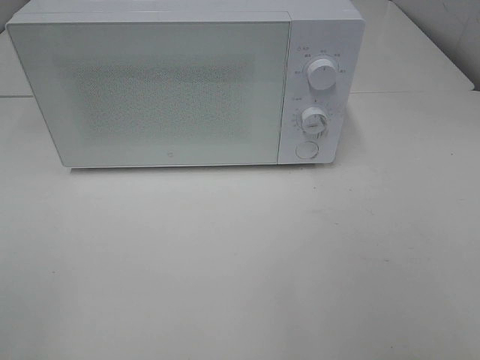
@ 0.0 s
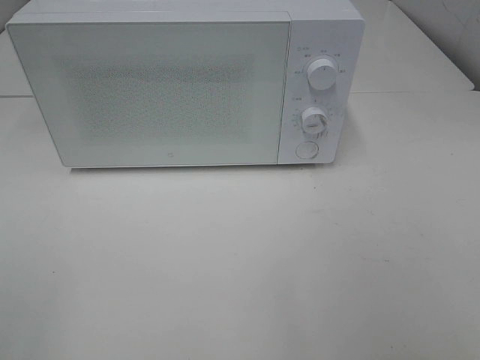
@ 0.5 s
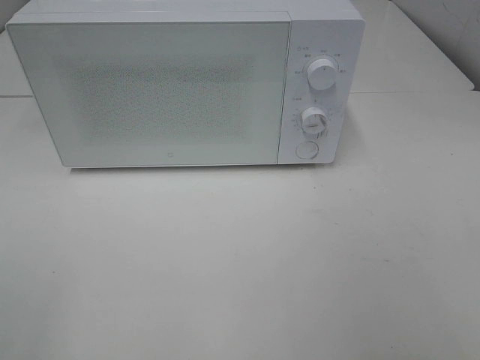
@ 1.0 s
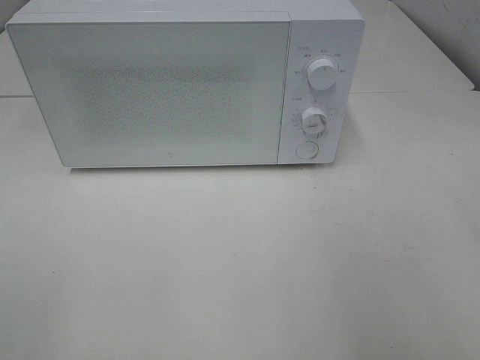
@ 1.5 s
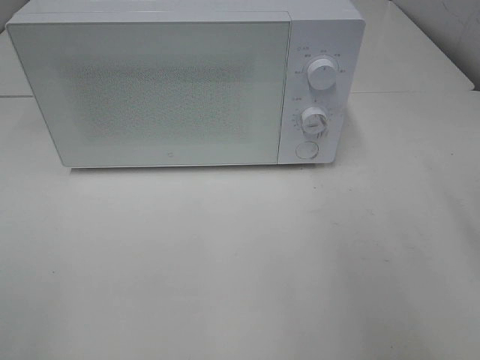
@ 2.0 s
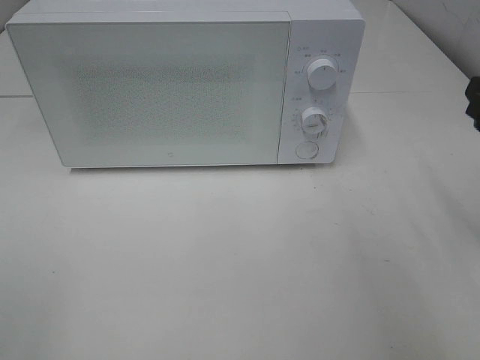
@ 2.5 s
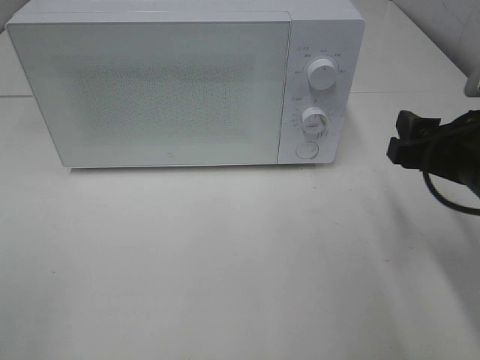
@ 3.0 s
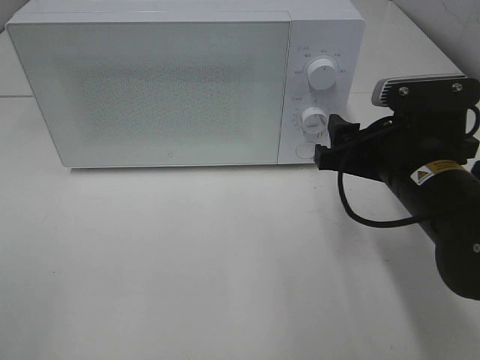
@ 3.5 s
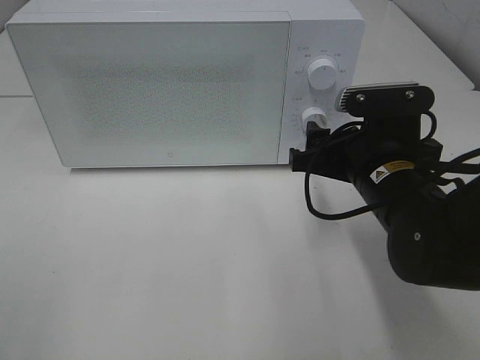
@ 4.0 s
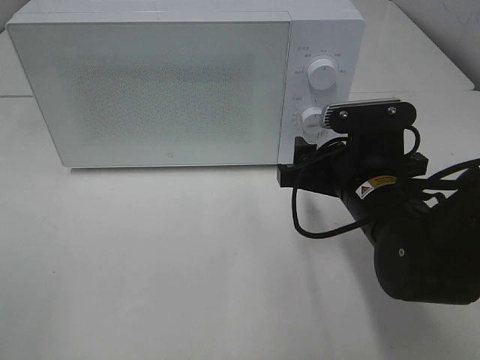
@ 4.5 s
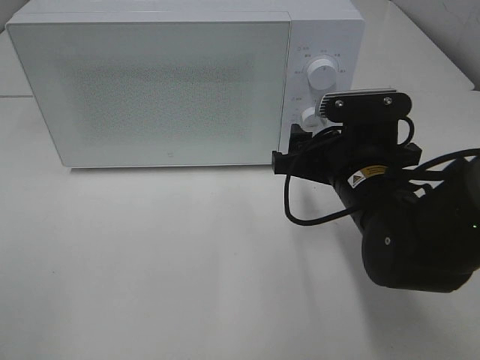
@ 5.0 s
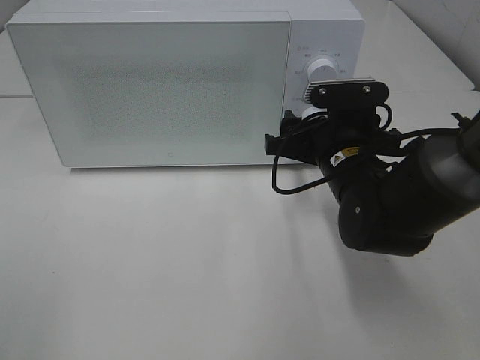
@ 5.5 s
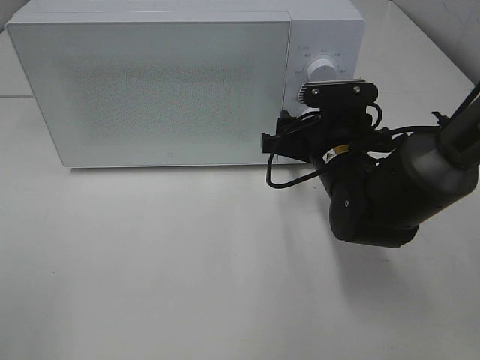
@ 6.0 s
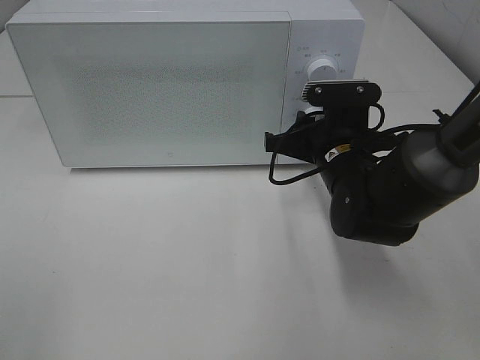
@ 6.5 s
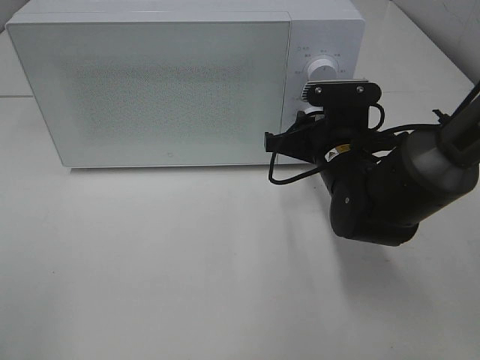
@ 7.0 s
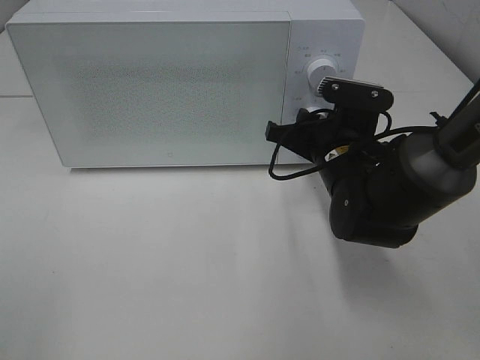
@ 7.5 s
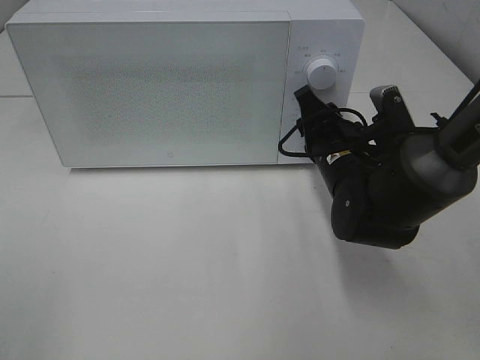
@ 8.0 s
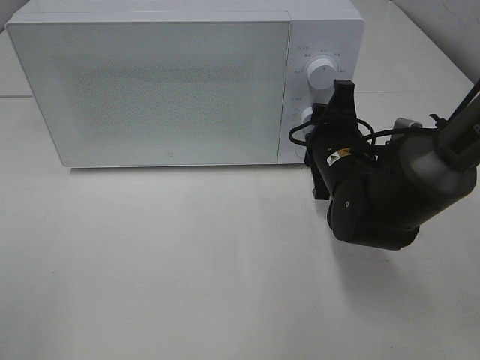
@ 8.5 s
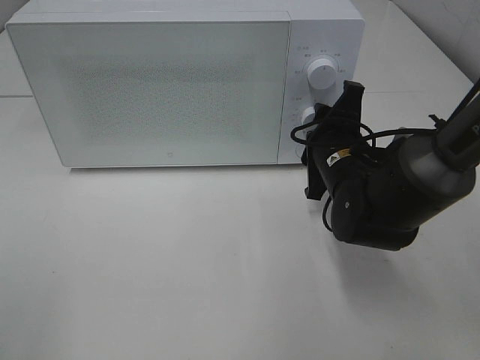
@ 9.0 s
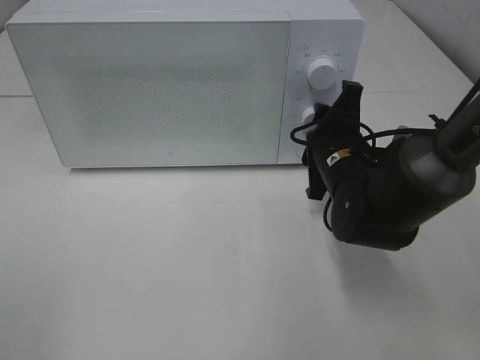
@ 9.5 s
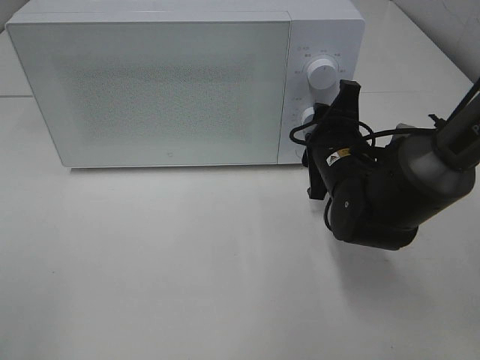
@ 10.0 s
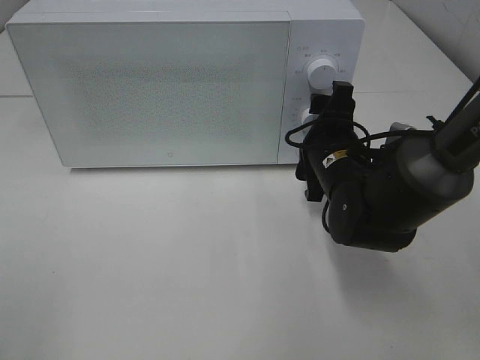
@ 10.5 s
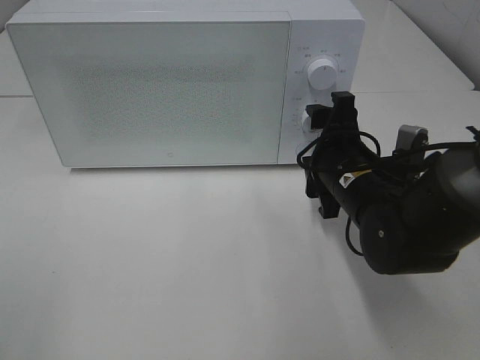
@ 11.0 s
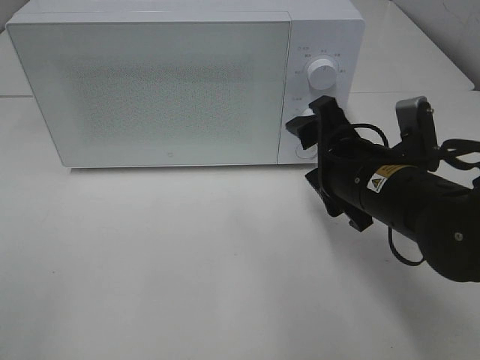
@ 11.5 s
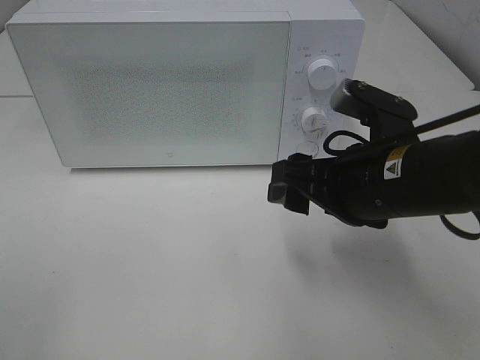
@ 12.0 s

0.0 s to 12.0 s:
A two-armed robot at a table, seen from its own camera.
Task of the whole recording: Heat Sandwich.
Step, 0.0 to 11.0 s: Right hand: twist timer button.
2.0 to 4.0 s: The right gripper heads to the left, downward and forward, covering some 20 cm.
4.0 to 6.0 s: The right gripper is displaced forward by some 5 cm.
6.0 to 8.0 s: The right gripper closes up.
10.0 to 12.0 s: The right gripper travels backward and upward by approximately 10 cm.

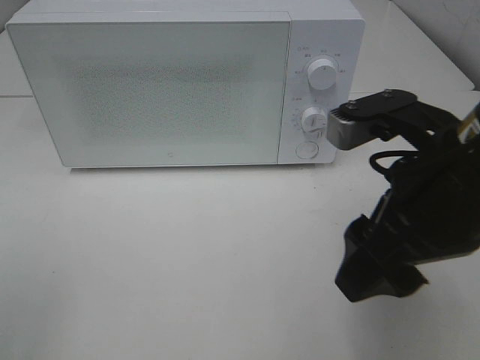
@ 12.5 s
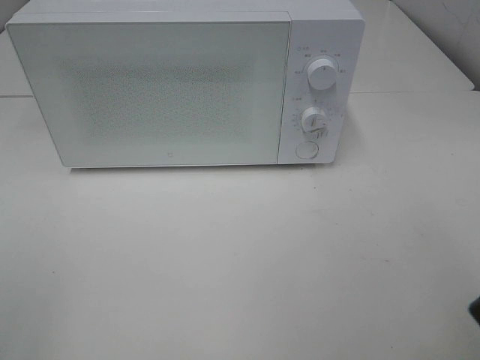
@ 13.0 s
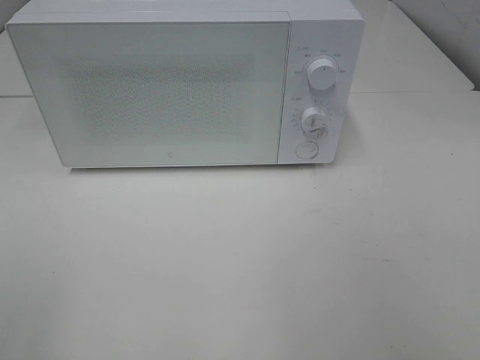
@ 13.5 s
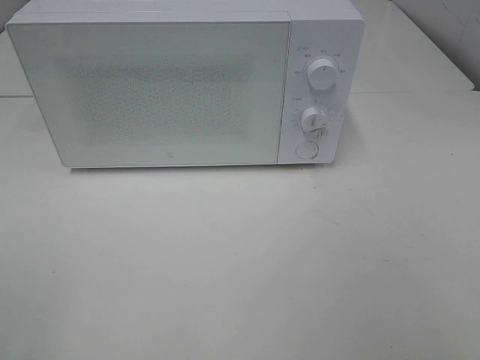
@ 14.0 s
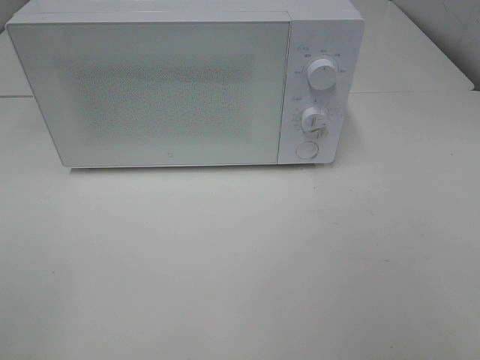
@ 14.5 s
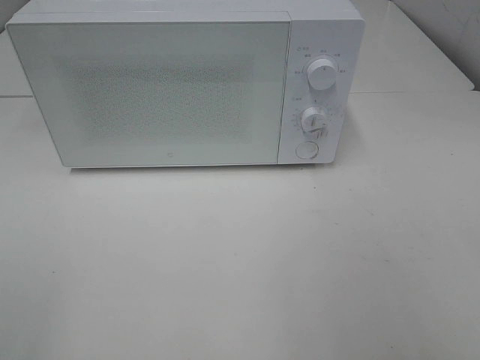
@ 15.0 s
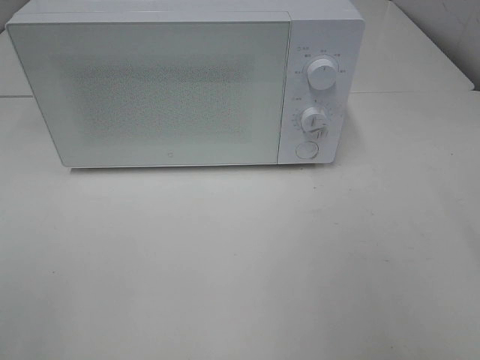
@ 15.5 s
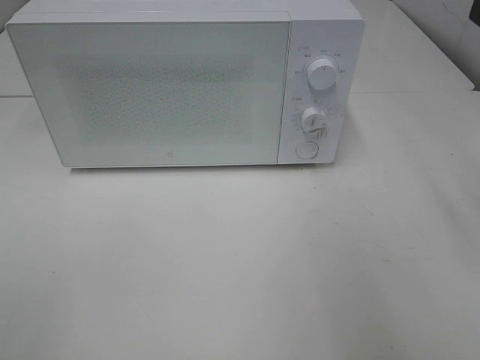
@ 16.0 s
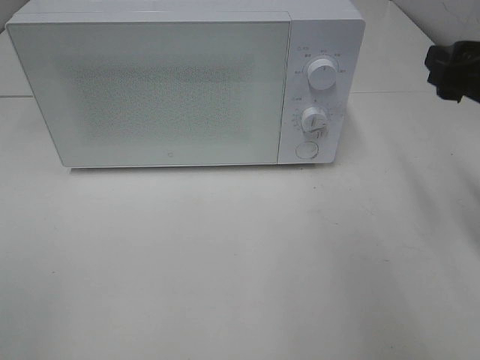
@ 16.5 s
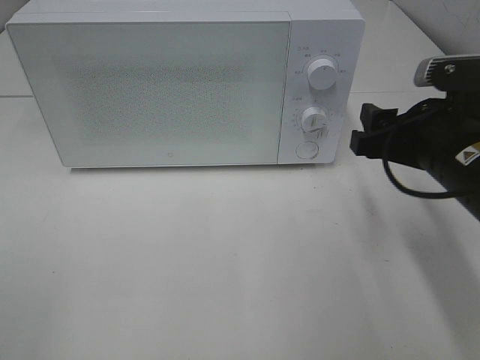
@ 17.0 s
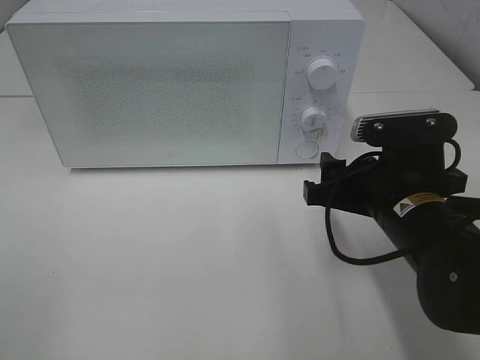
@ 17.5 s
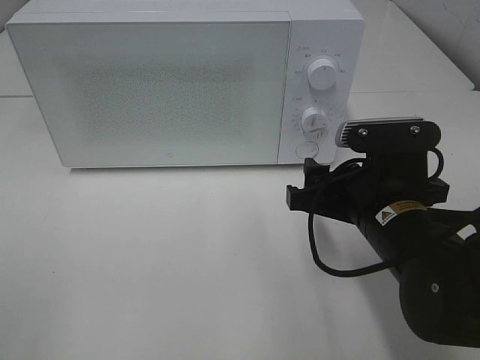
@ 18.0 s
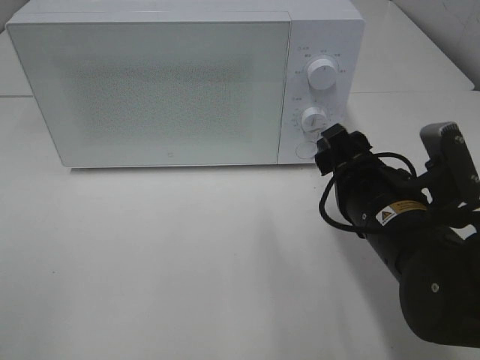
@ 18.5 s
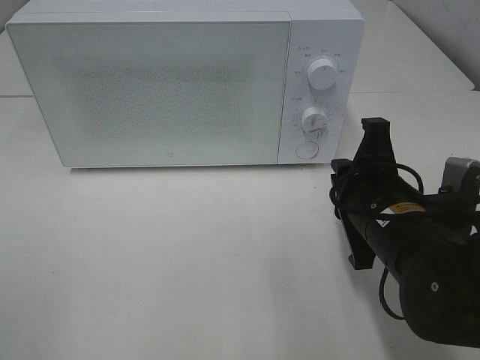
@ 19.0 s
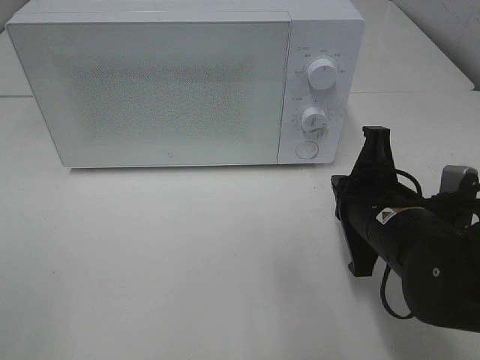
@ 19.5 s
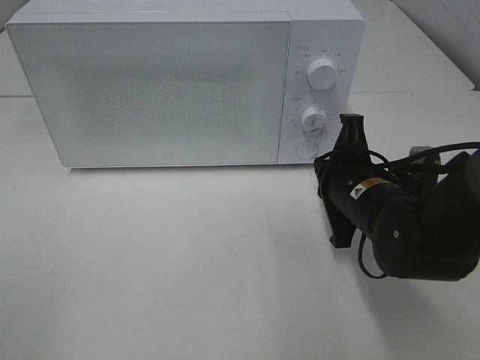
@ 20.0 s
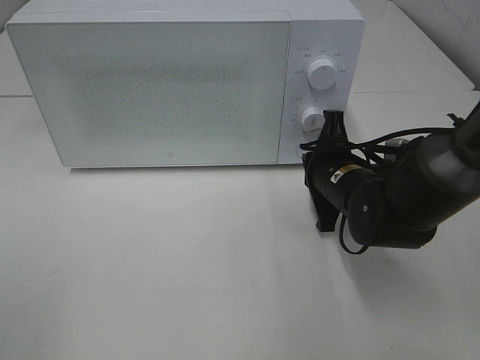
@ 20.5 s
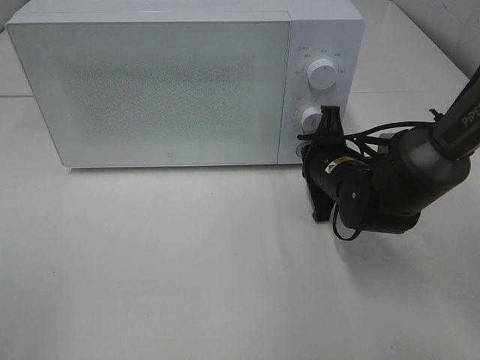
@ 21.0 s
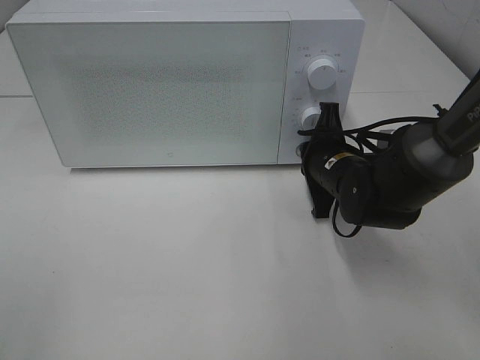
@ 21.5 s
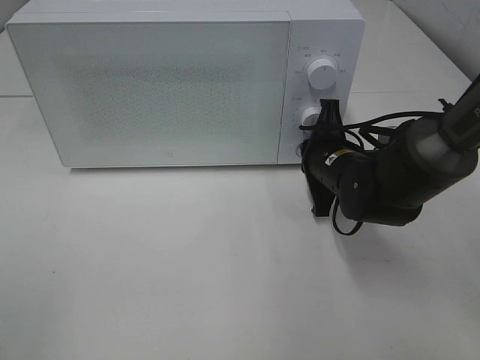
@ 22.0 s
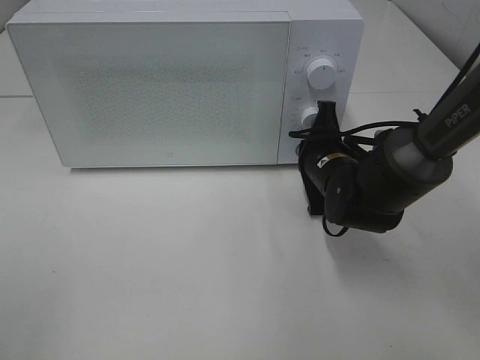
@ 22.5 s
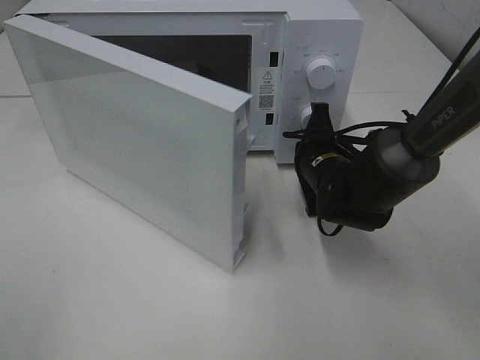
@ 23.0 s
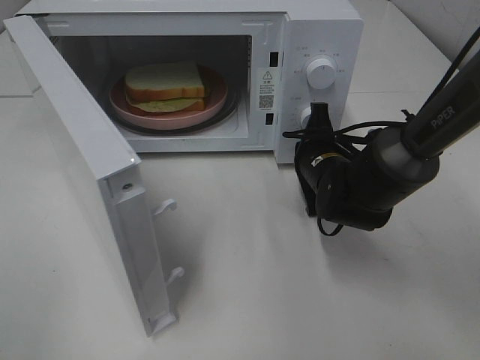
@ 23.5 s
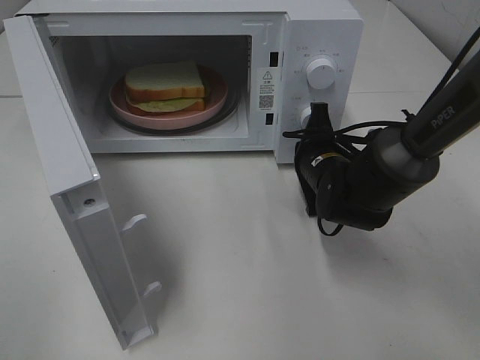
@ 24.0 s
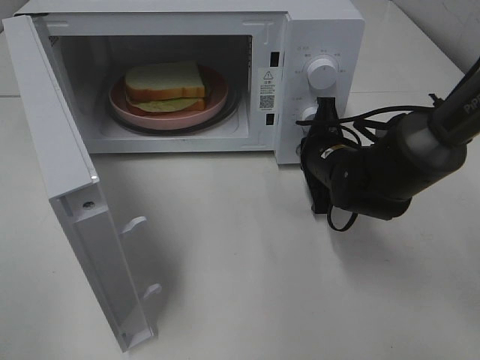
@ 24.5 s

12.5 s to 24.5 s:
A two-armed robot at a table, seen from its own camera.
Task of the whole recording: Heat Sandwich.
12.5 to 14.5 s: The right gripper heads backward and to the right, covering some 20 cm.
14.5 to 16.5 s: The right gripper goes roughly 25 cm forward.
16.5 to 18.5 s: The right gripper travels to the left and downward by about 15 cm.
18.5 to 20.5 s: The right gripper shifts approximately 10 cm forward and downward, and closes its fingers.
20.5 to 22.5 s: The grippers stay close to where they were, moving slightly.

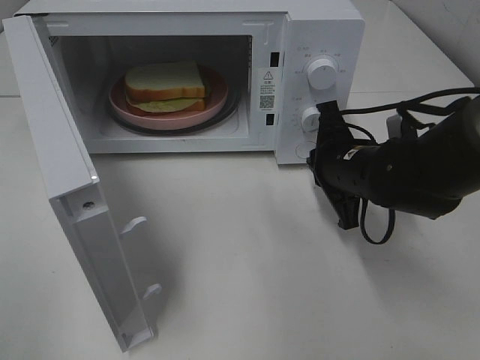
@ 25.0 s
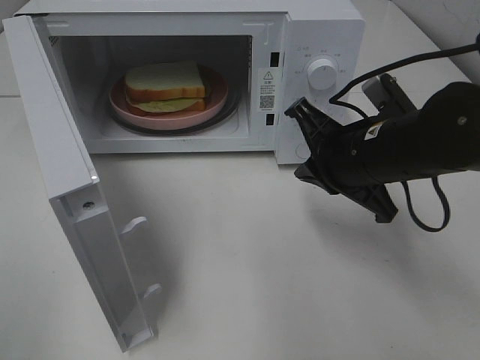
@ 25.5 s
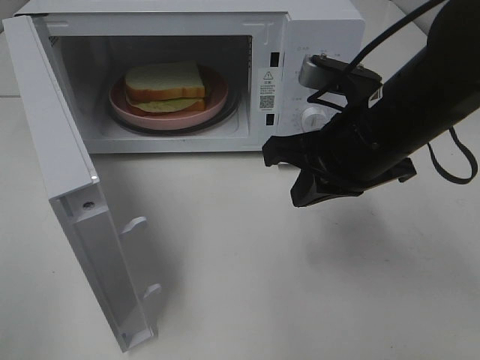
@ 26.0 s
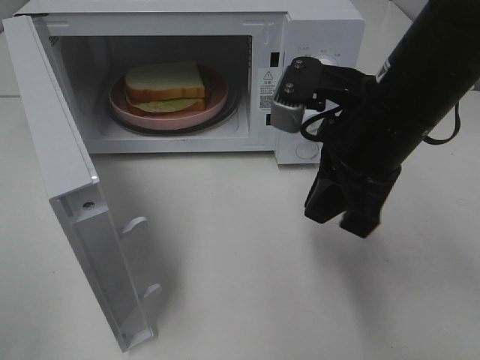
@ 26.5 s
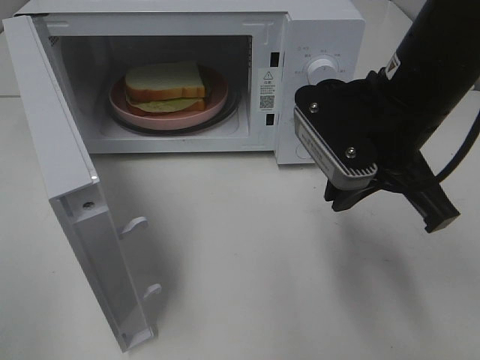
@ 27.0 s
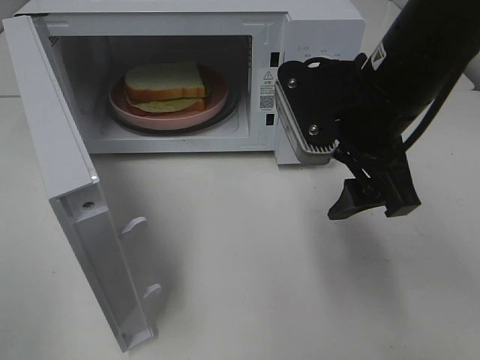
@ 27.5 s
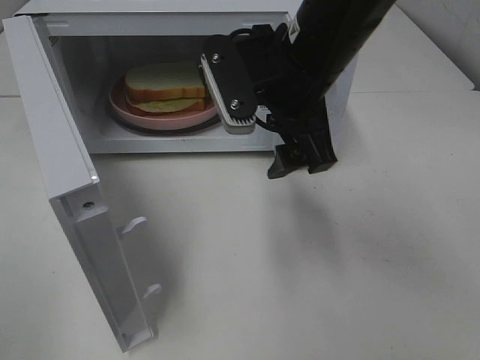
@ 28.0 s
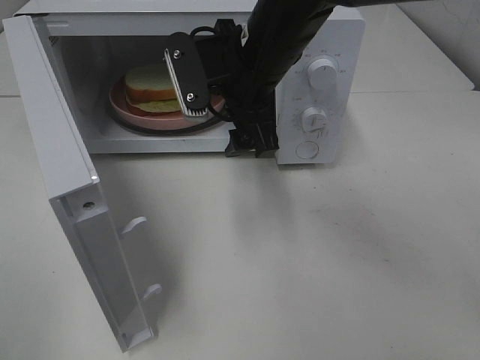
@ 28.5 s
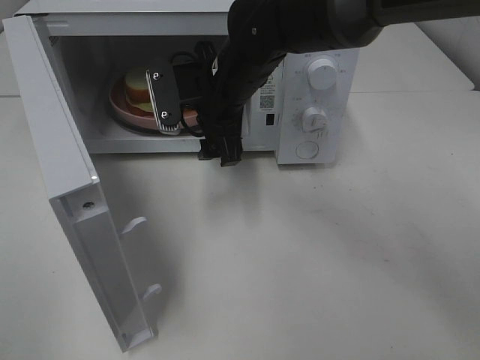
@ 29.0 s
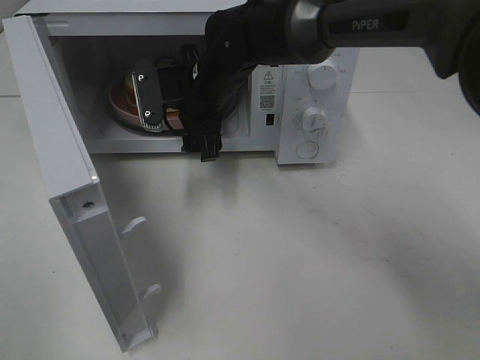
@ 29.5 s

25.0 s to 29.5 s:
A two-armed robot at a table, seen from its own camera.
Task of the whole recording: Heat Sandwich.
25.0 to 27.0 s: The right gripper heads upward and backward, covering about 15 cm.
27.0 to 29.5 s: The right gripper shifts approximately 25 cm to the left, forward and downward, and opens up.
